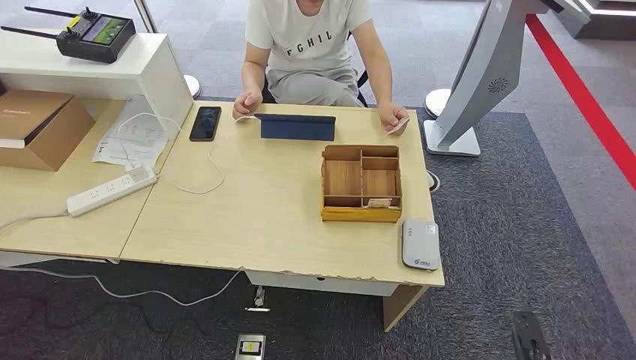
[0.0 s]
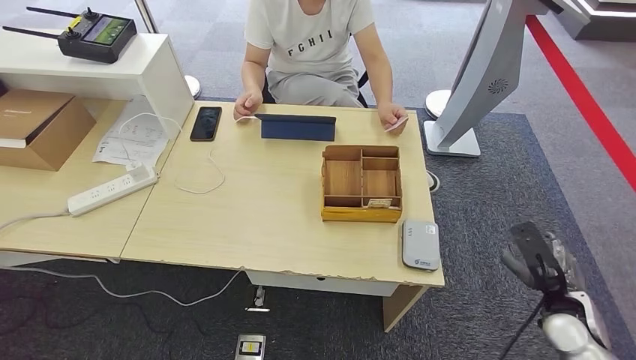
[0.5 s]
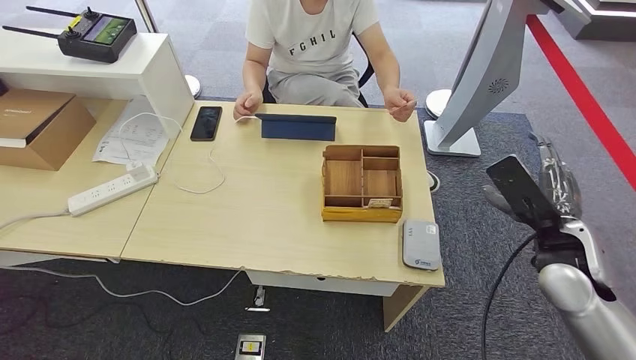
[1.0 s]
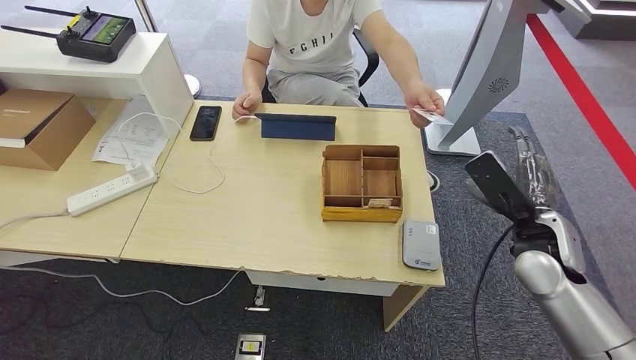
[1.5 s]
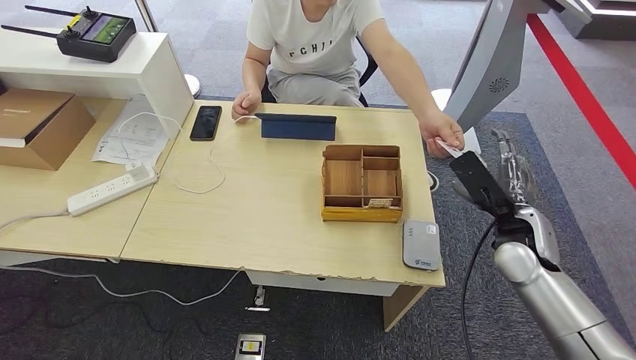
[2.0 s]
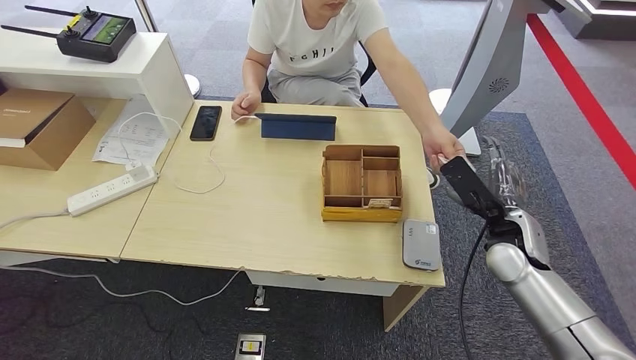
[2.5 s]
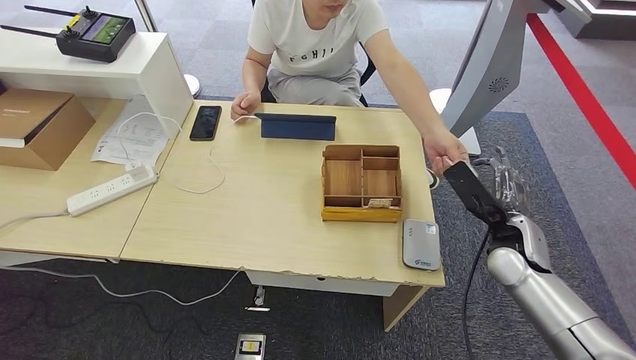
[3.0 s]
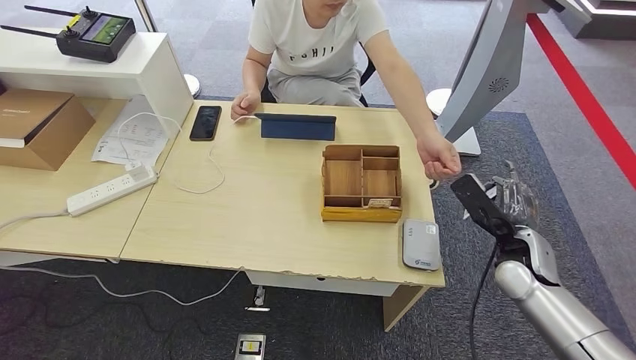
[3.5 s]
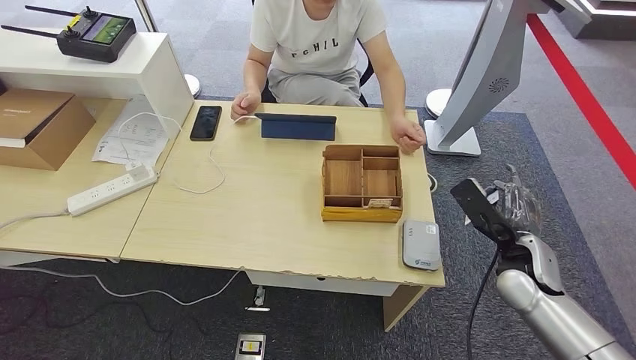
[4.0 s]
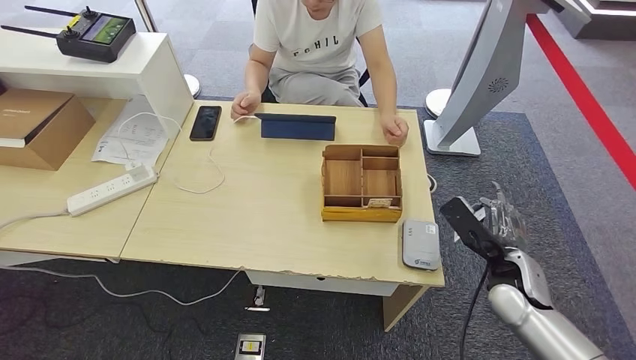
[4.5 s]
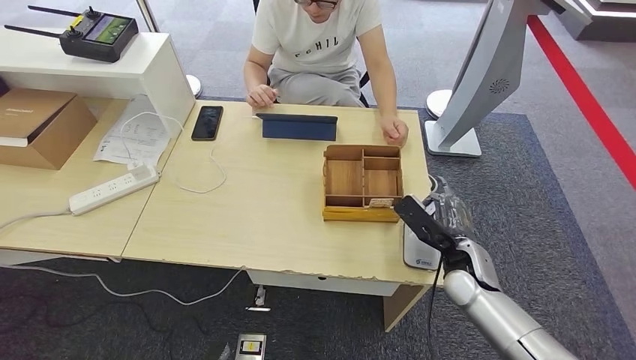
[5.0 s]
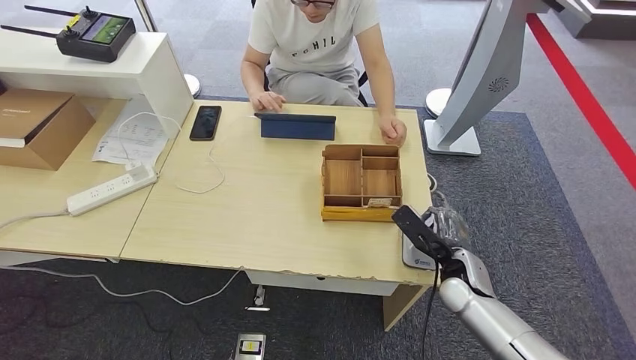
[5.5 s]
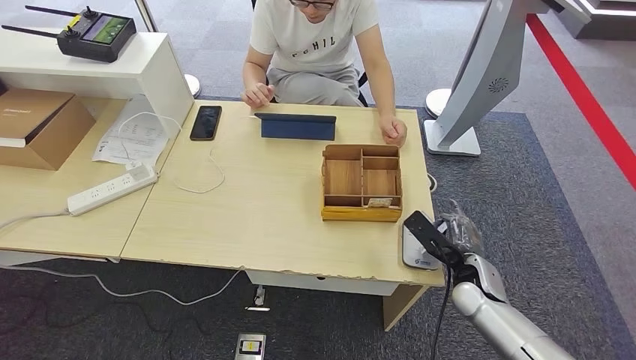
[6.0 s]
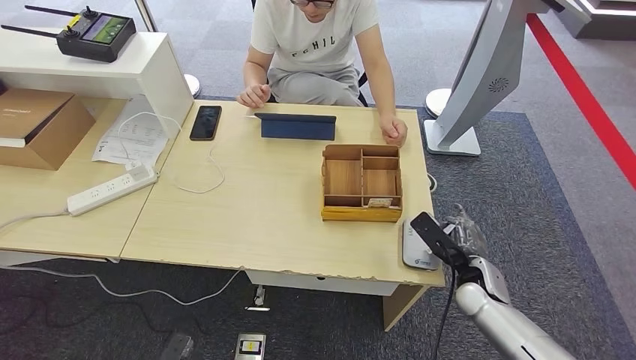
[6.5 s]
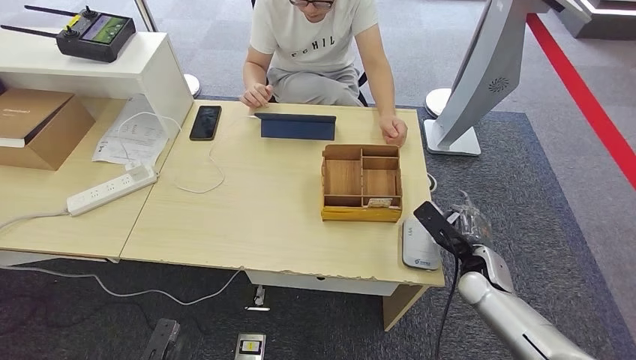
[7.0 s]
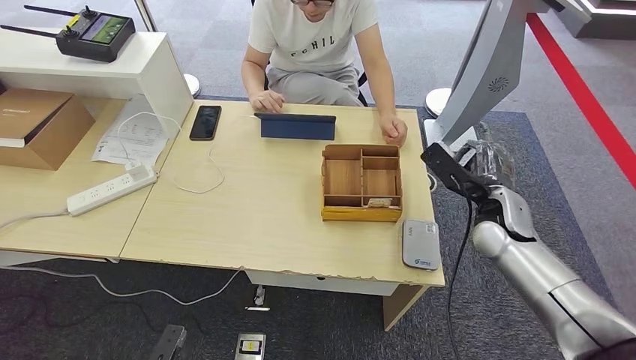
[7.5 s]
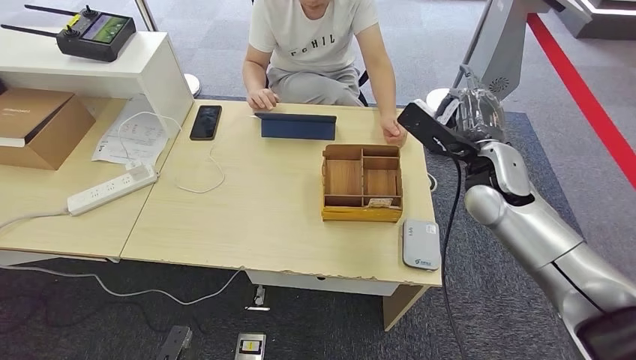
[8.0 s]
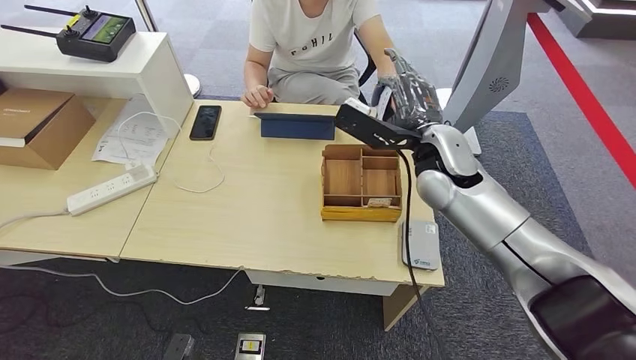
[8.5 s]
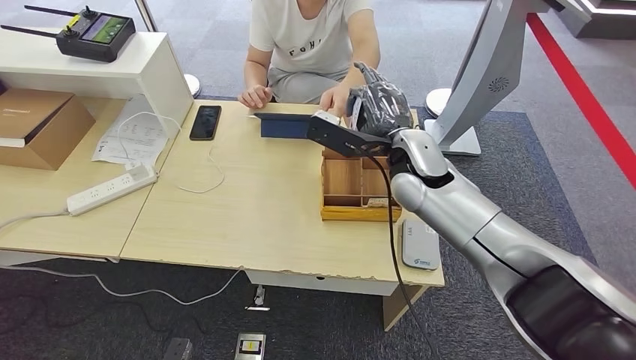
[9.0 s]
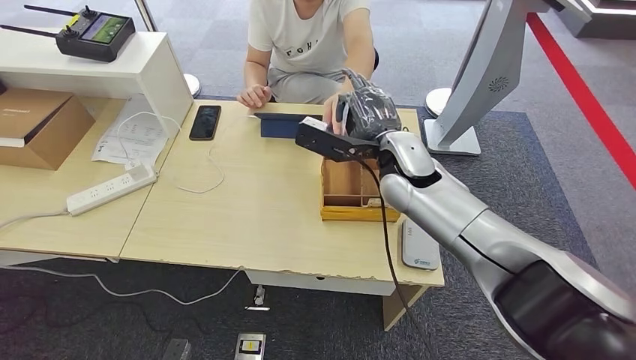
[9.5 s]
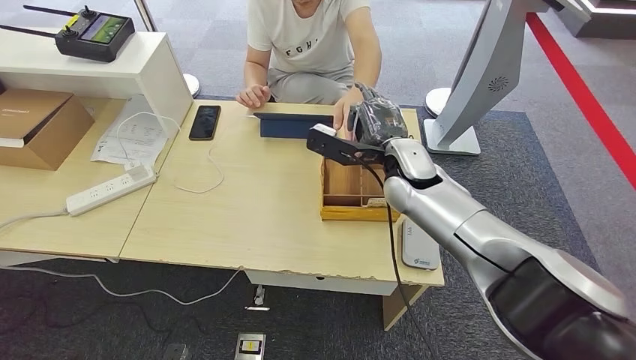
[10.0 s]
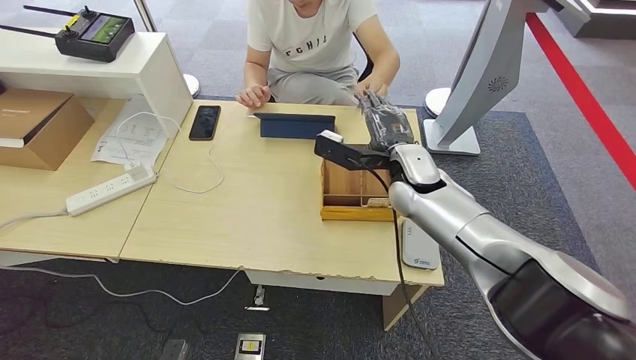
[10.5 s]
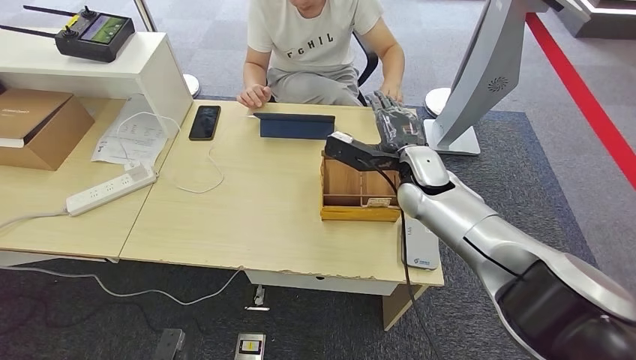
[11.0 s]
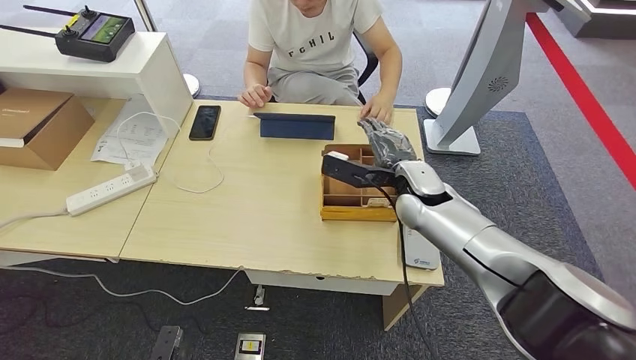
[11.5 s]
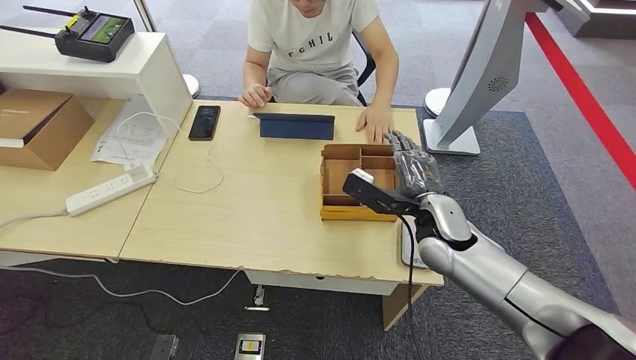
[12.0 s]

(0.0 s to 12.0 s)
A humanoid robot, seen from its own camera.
Step, 0.0 s - 3.5 s: Take the ID card from the person's hand.
Step, 4.0 s - 6.5 s: Place the ID card on the card reader.
Step, 7.0 s - 11.0 s: Hand the ID card to the person.
2.0 s - 4.0 s: The right hand shifts by about 5 cm.
4.0 s - 6.0 s: The right hand heads downward, covering some 10 cm.
6.0 s - 8.0 s: The left hand travels forward by roughly 5 cm. Meanwhile the right hand heads upward and forward, covering about 25 cm.
8.0 s - 10.0 s: The right hand goes about 10 cm to the left.
10.0 s - 12.0 s: The right hand heads backward, downward and to the right, covering about 10 cm.

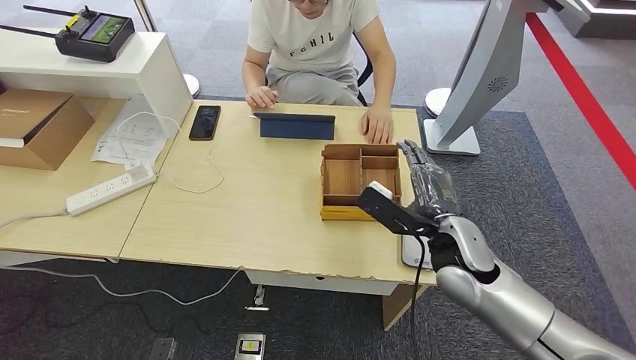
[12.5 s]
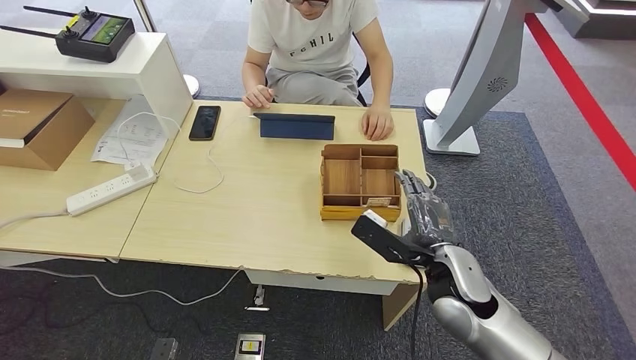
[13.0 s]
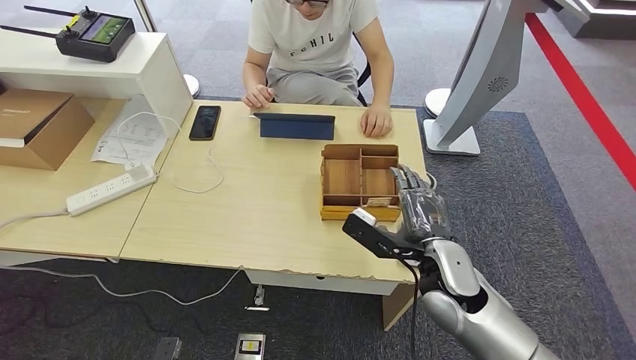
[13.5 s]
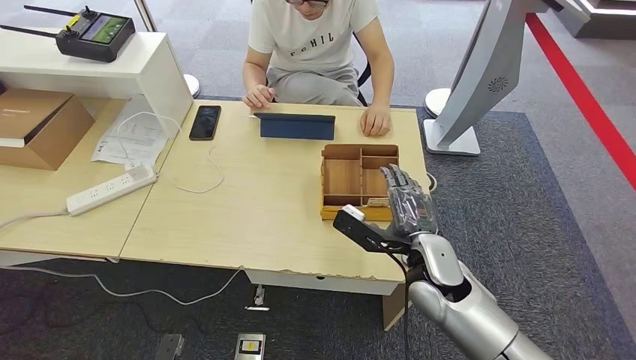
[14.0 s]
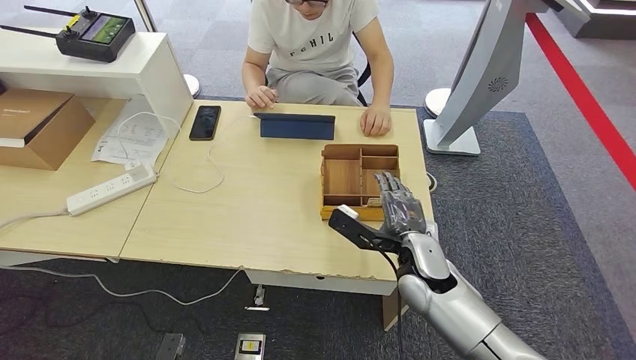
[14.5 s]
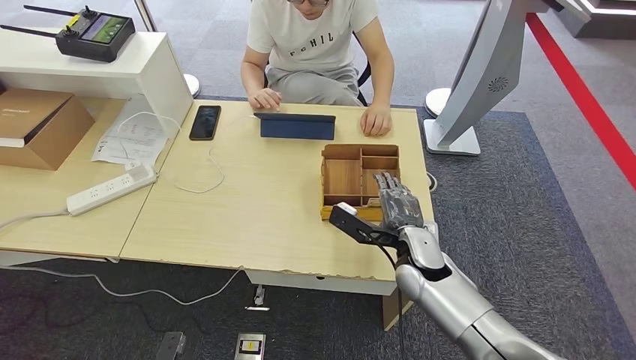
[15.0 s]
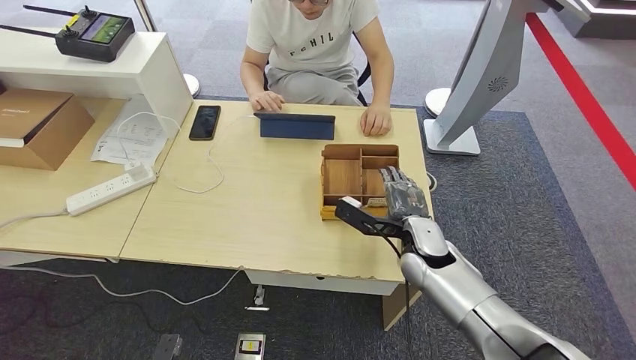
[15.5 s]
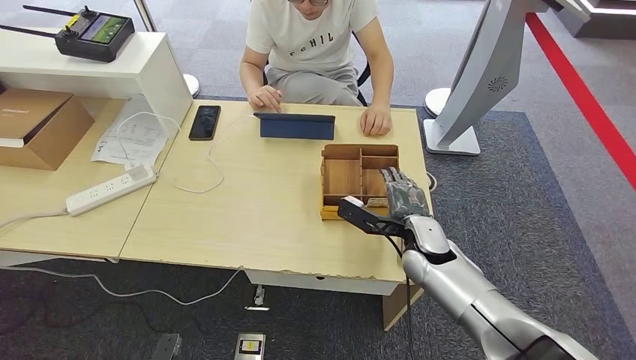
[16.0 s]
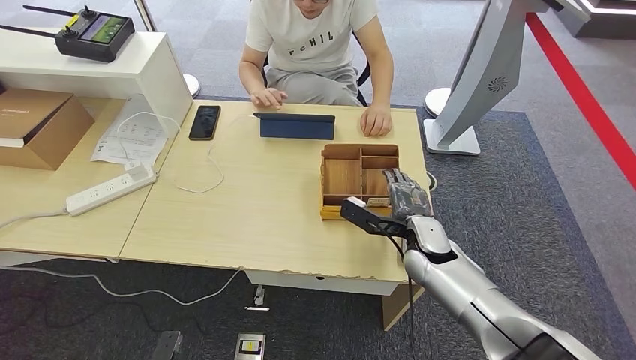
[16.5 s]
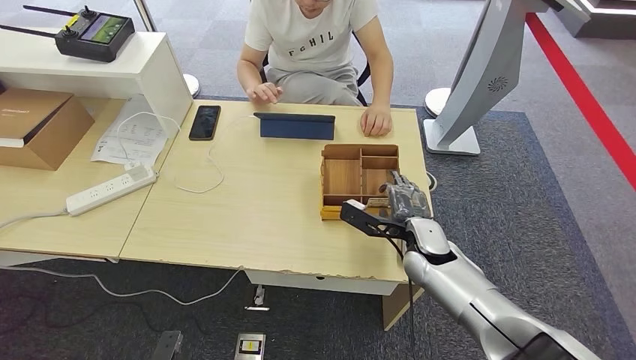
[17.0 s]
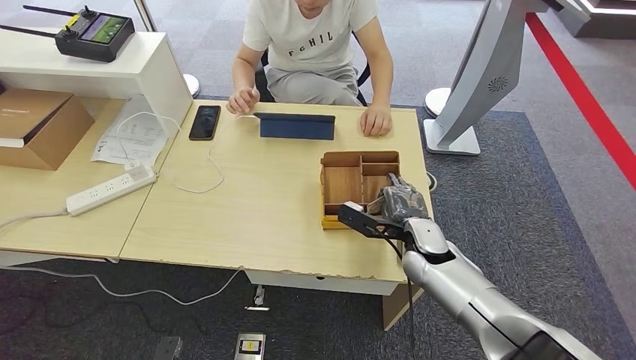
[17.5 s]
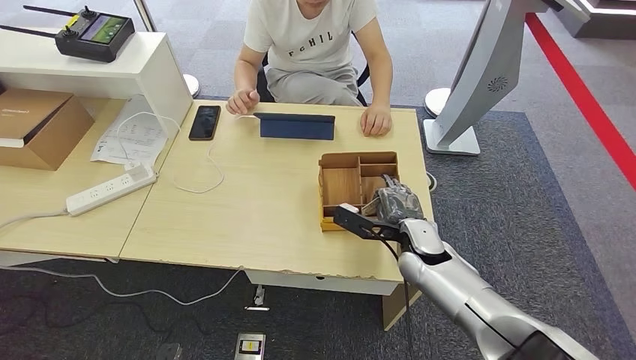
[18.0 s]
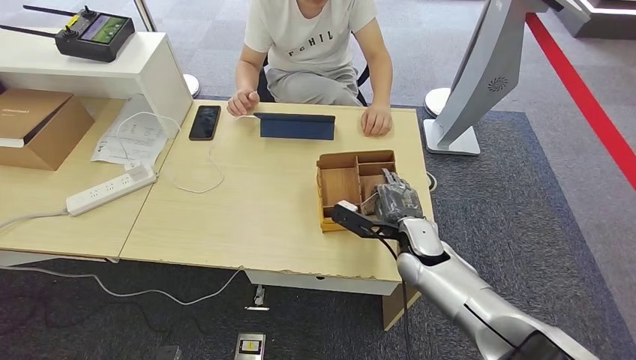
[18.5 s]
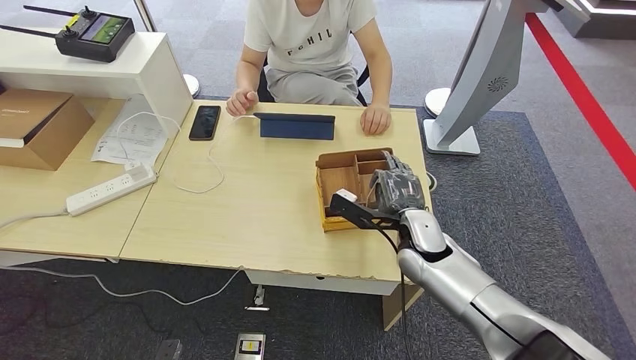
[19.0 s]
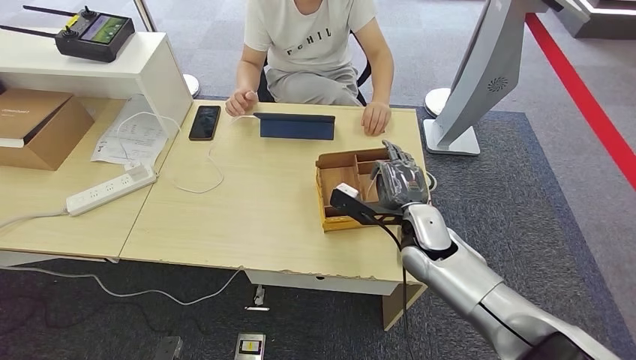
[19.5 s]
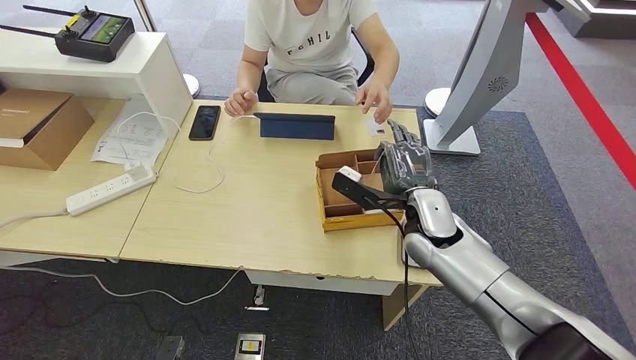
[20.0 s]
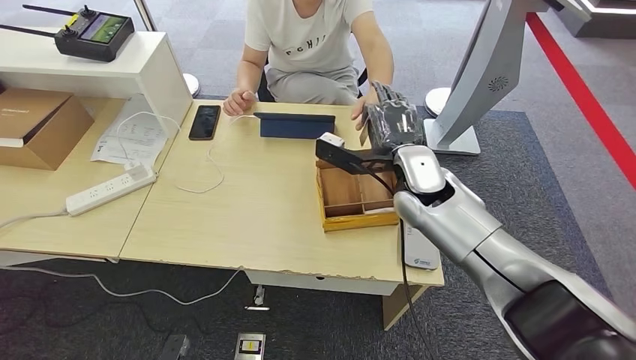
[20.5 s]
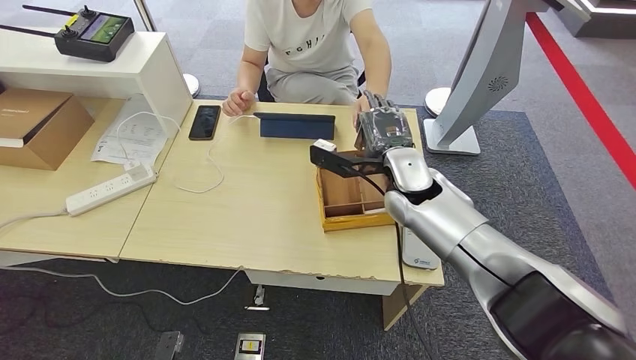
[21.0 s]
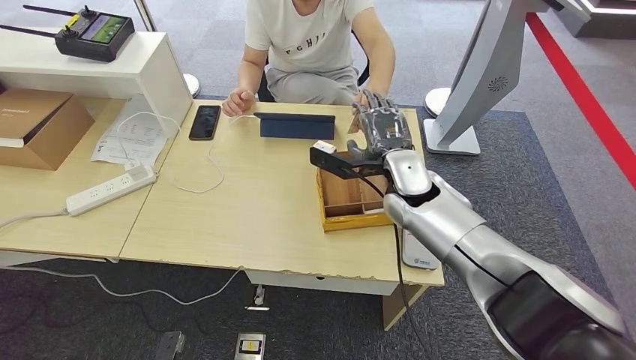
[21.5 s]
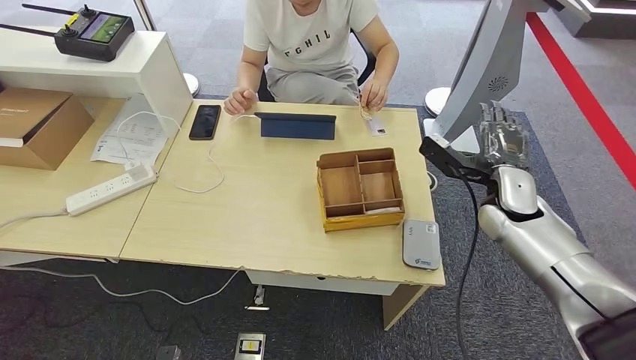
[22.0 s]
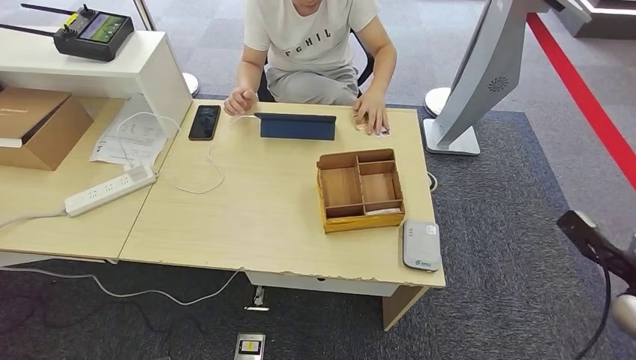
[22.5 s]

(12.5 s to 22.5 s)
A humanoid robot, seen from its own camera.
Step, 12.5 s - 19.0 s: Pick up the room key from the key card box.
Step, 19.5 s - 22.5 s: Hand the room key to the person.
12.5 s - 14.5 s: The right hand goes roughly 5 cm downward.
14.5 s - 16.5 s: The right hand moves some 5 cm.
16.5 s - 18.5 s: There are only small adjustments of the hands.
18.5 s - 20.5 s: The right hand goes about 15 cm upward and forward.
20.5 s - 22.5 s: The right hand heads to the right and backward, covering about 40 cm.
